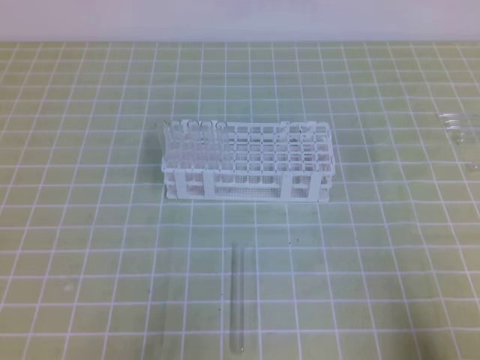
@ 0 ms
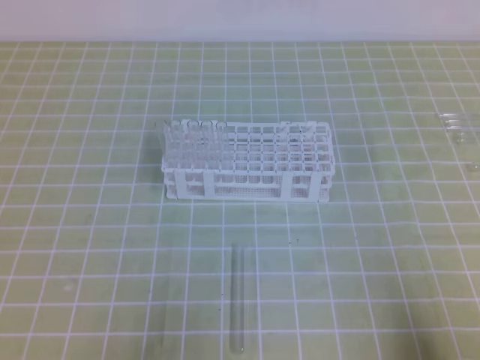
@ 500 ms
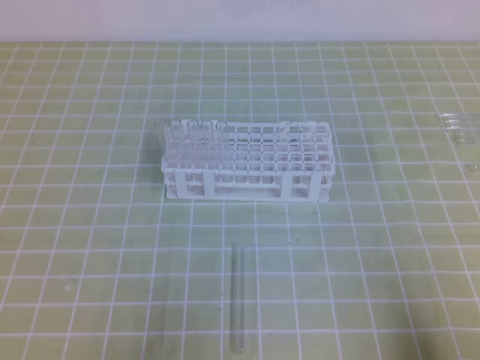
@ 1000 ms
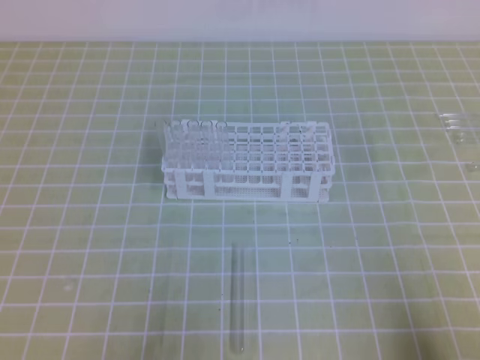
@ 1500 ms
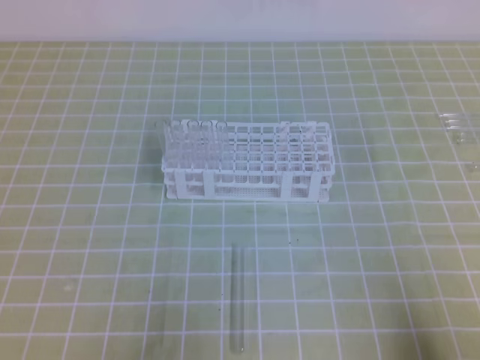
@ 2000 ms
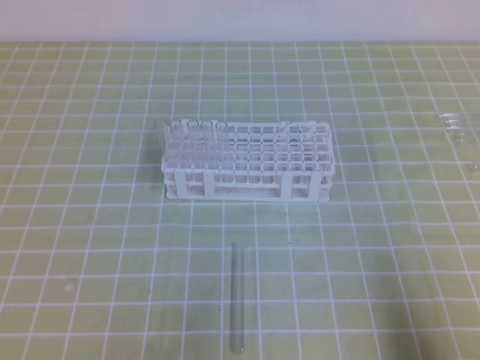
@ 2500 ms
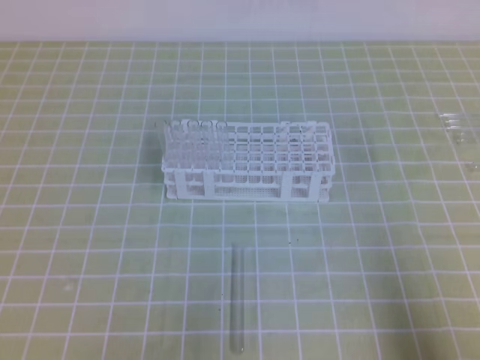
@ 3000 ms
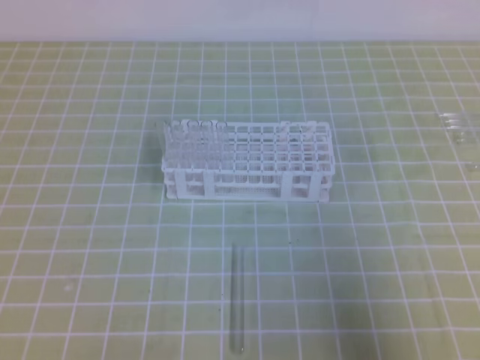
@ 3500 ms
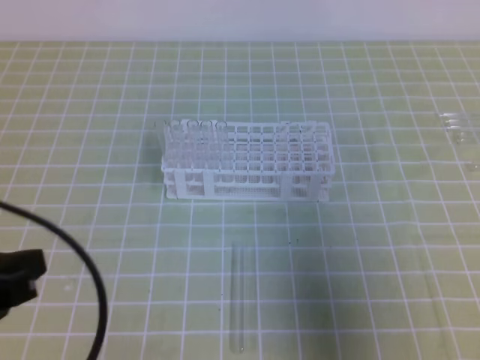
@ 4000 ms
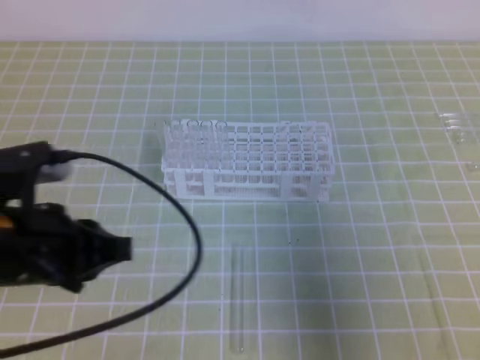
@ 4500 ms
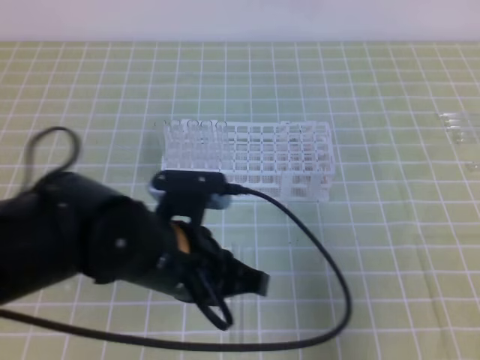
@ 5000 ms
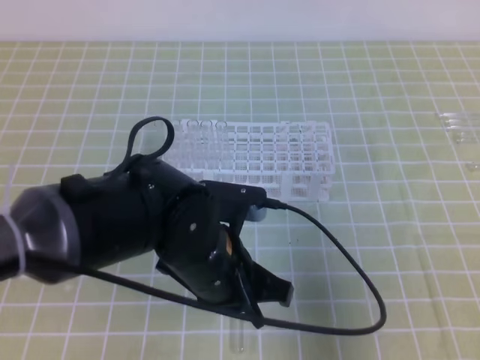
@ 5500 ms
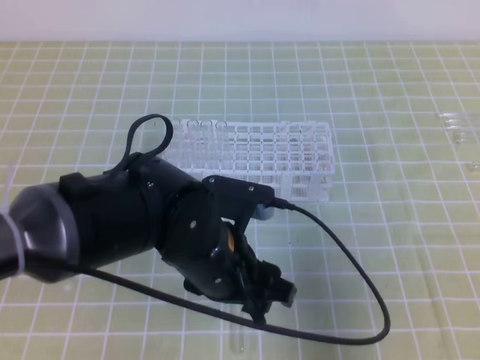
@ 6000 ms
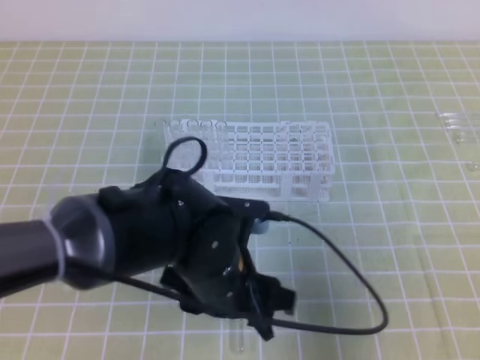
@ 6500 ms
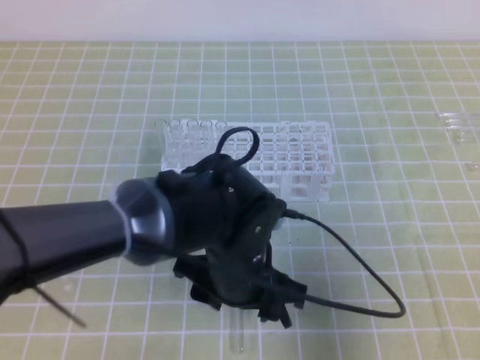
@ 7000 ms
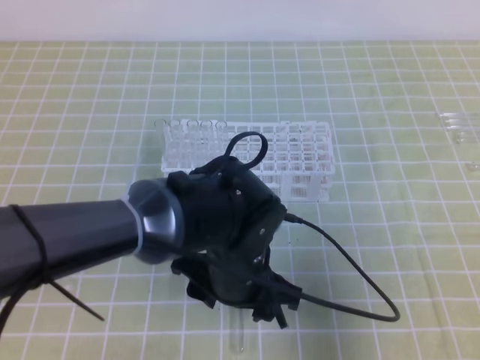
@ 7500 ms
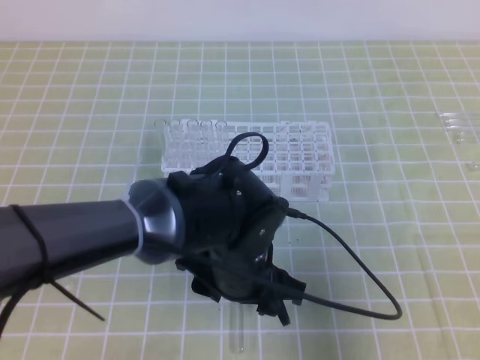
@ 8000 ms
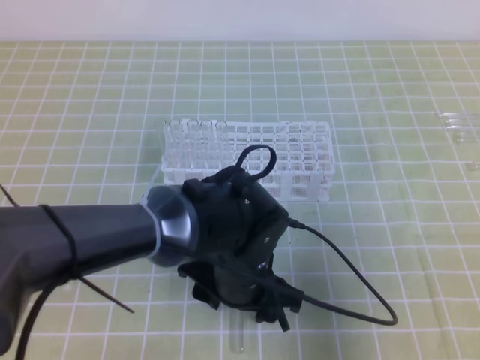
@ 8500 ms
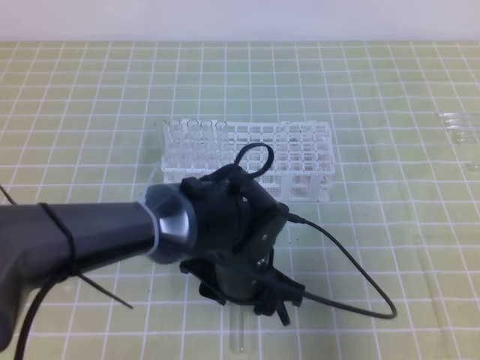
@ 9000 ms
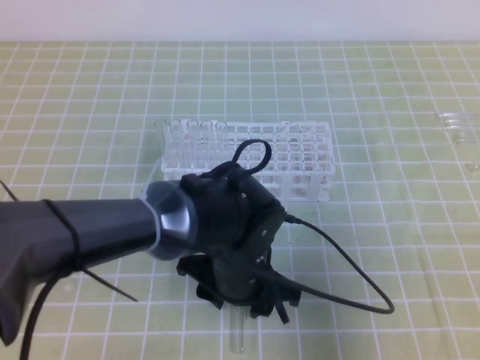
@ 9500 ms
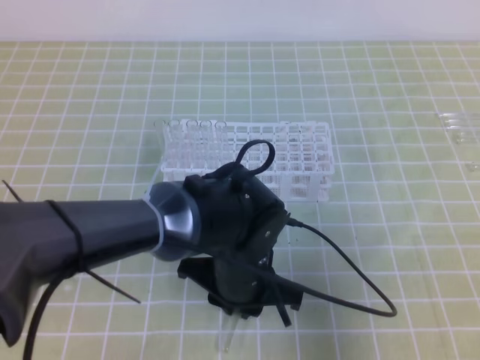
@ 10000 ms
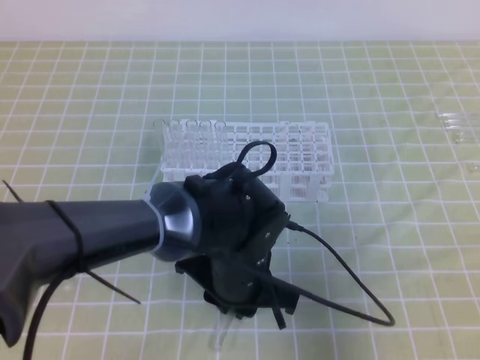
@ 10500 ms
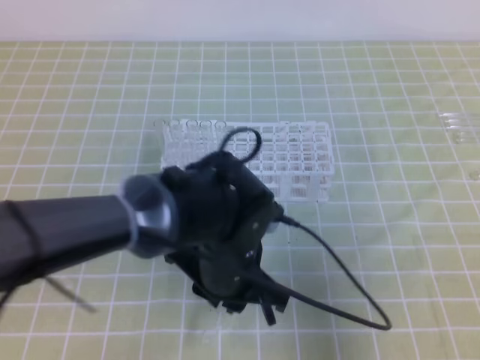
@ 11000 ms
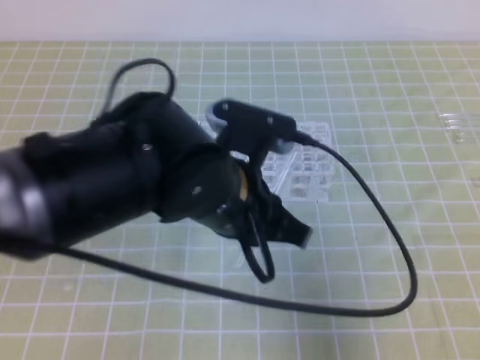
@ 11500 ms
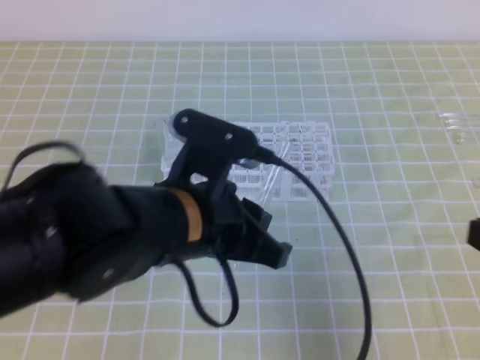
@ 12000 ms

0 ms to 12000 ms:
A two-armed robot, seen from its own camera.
0 ms to 2000 ms: Both grippers stay about where they are.
2000 ms to 4000 ms: The two grippers go some 15 cm upward and forward.
4000 ms to 6000 ms: The left gripper heads to the right and forward, covering about 25 cm, and opens up.
6000 ms to 8000 ms: The left gripper ends up roughly 5 cm from where it was.
8000 ms to 10000 ms: The left gripper closes its fingers.
10000 ms to 12000 ms: The left gripper travels upward by some 15 cm.

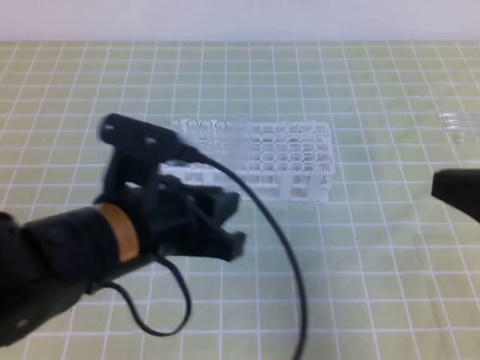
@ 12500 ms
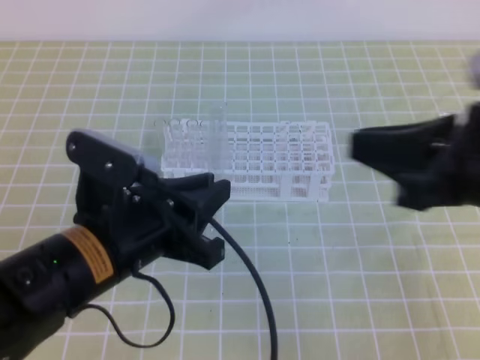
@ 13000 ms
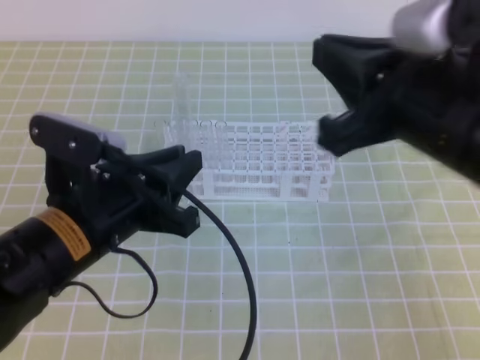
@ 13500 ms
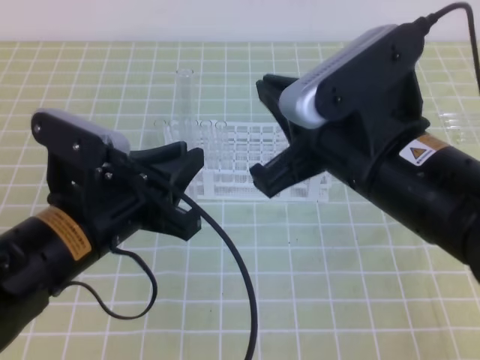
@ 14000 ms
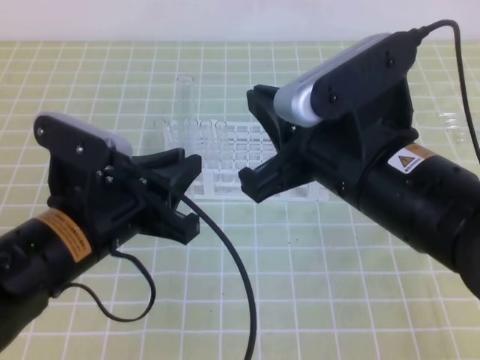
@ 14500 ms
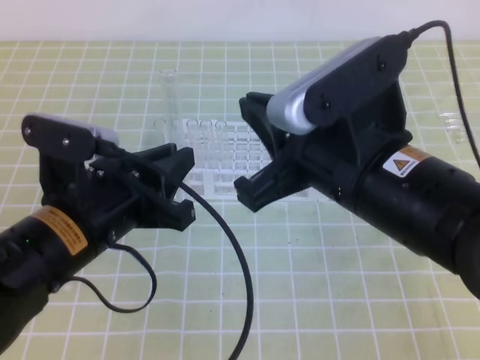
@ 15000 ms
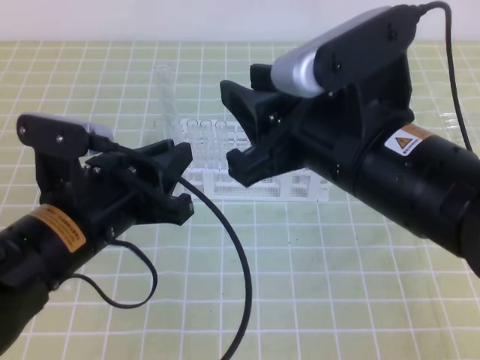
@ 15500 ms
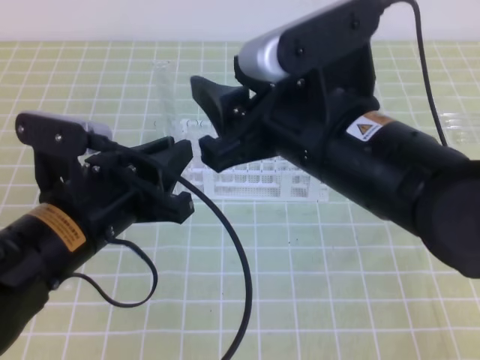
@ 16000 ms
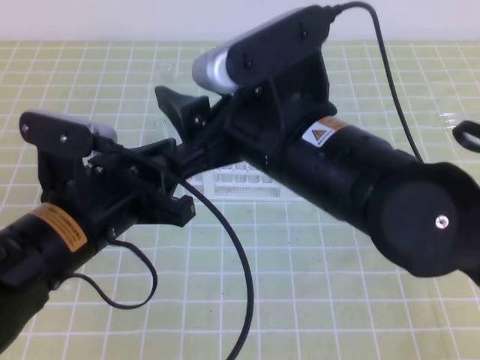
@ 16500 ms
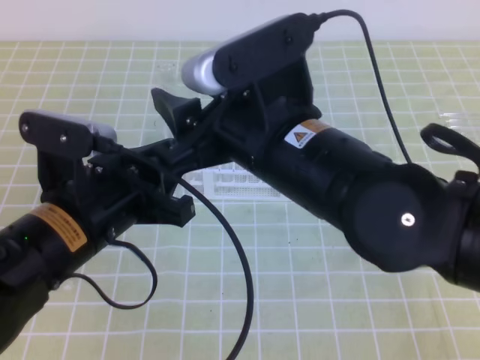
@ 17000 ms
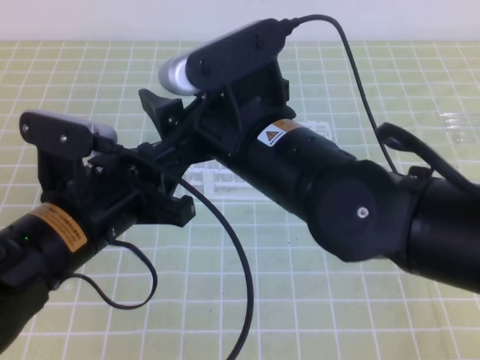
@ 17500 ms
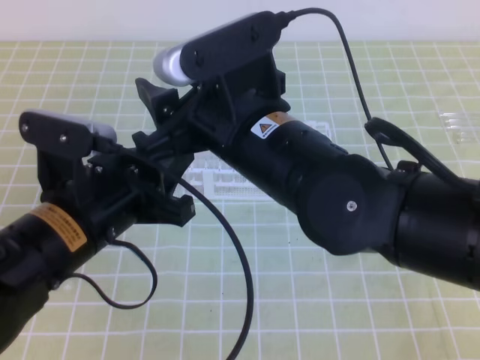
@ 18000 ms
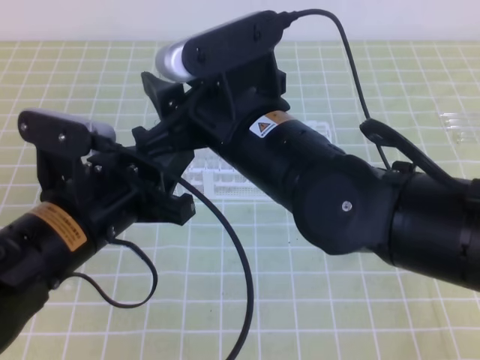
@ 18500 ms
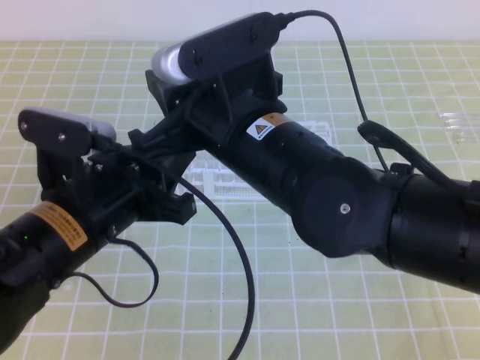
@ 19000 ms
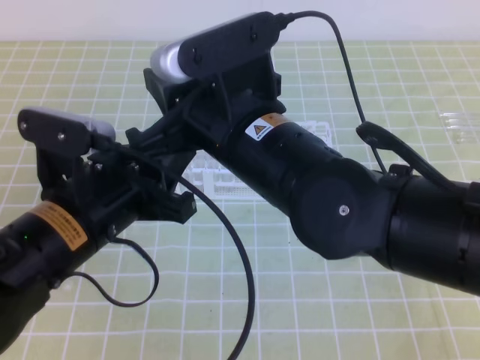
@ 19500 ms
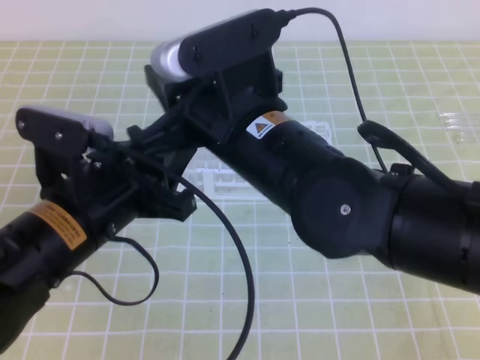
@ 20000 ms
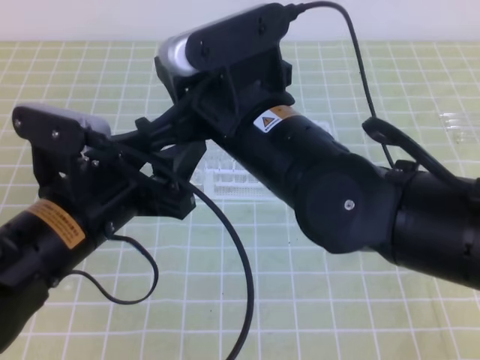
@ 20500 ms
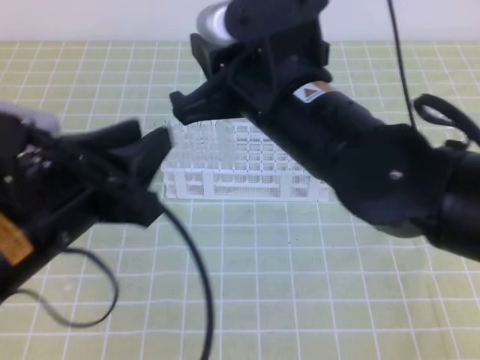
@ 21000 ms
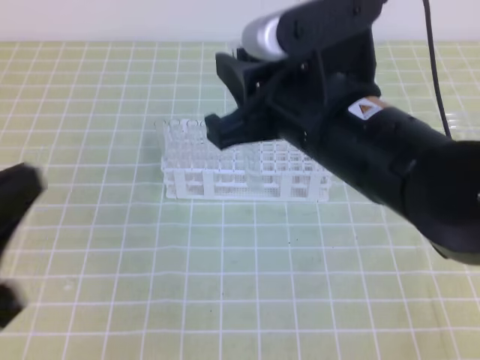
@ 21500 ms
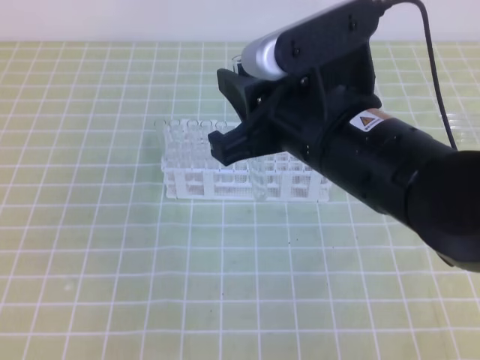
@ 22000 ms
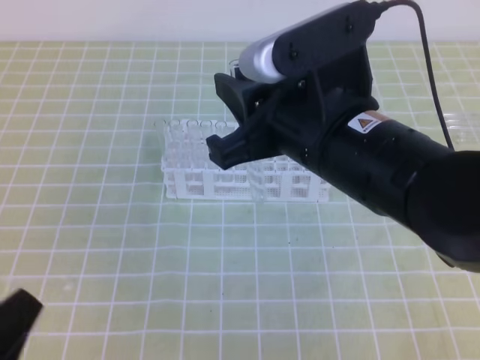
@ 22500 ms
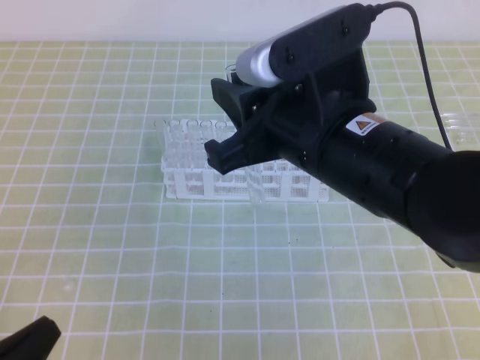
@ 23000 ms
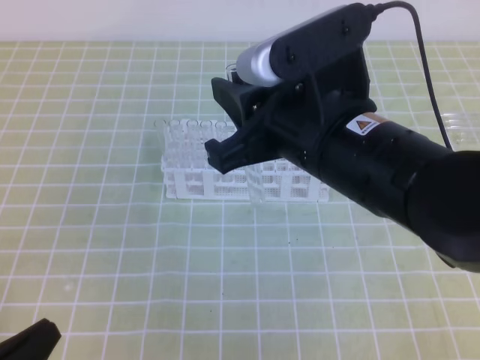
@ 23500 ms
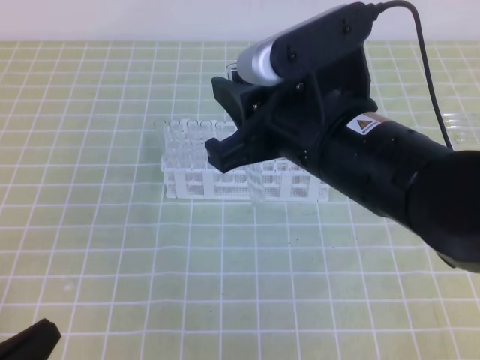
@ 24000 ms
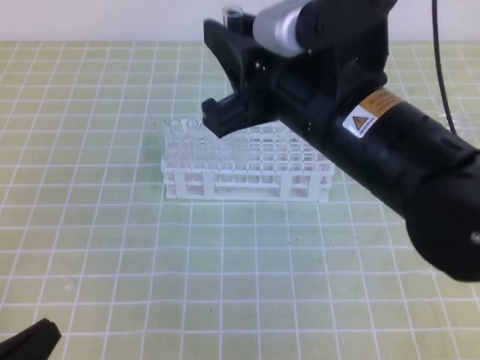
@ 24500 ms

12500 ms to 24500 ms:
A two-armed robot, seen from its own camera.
12500 ms to 14500 ms: The right gripper heads to the left, covering about 15 cm.
14500 ms to 16500 ms: The right gripper shifts by about 5 cm, and opens its fingers.
16500 ms to 18500 ms: The right gripper changes place by some 5 cm.
18500 ms to 20500 ms: The left gripper opens. Meanwhile the right gripper closes.
20500 ms to 22500 ms: The right gripper moves to the right, some 5 cm. Meanwhile the left gripper shifts approximately 20 cm backward and to the left, and closes its fingers.
22500 ms to 24500 ms: The grippers make only small movements.

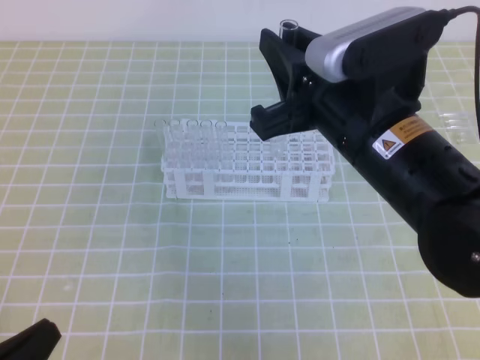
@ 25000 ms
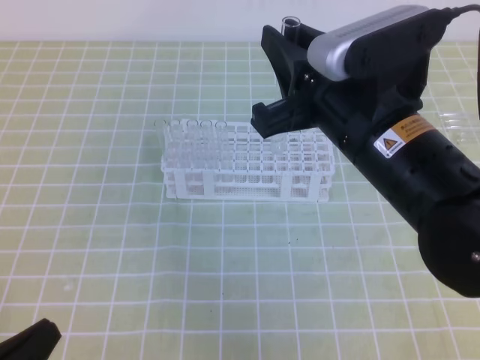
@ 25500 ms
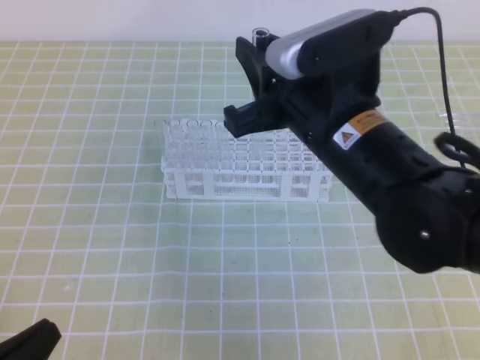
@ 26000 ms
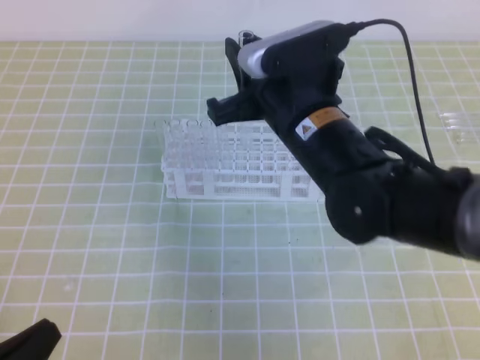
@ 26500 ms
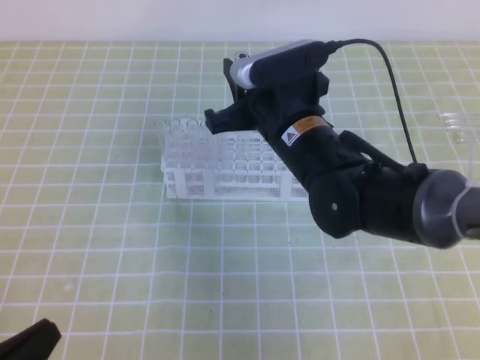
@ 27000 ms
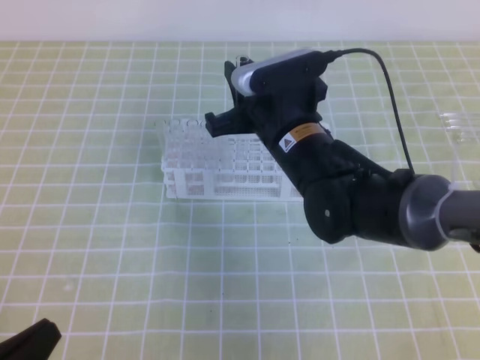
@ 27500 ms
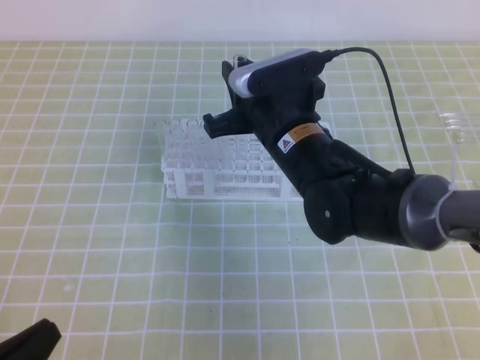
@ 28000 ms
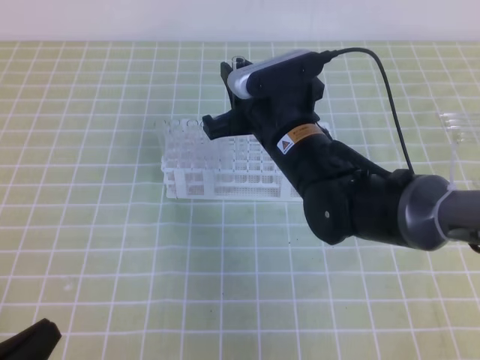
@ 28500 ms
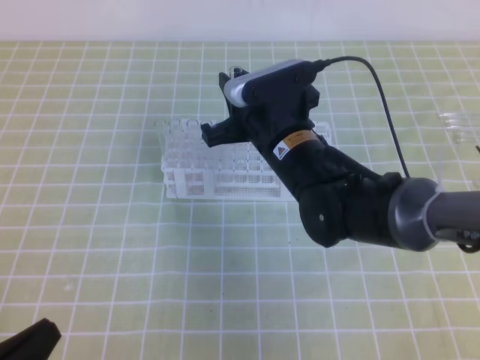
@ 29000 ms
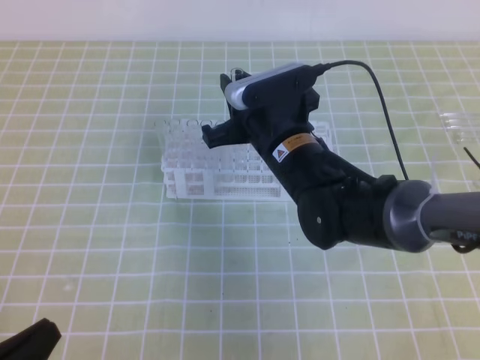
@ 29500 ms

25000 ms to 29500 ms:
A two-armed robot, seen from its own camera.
25000 ms to 27000 ms: The right gripper moves forward, downward and to the left, some 15 cm.
27000 ms to 29500 ms: There are only small adjustments of the grippers.
